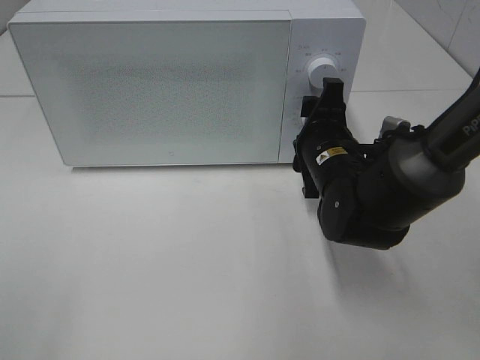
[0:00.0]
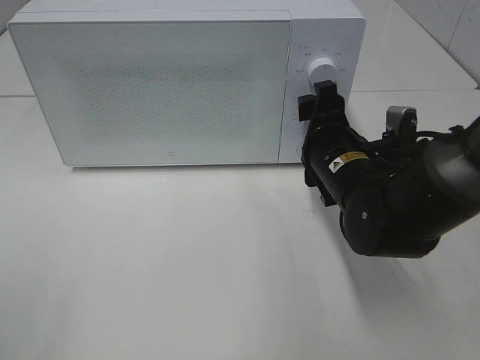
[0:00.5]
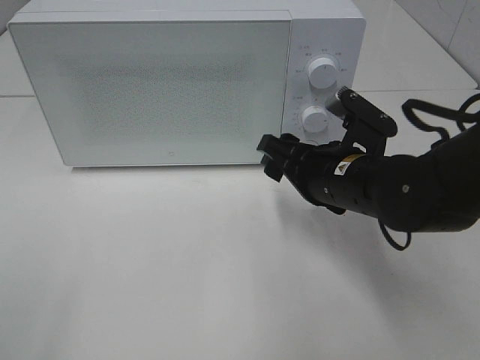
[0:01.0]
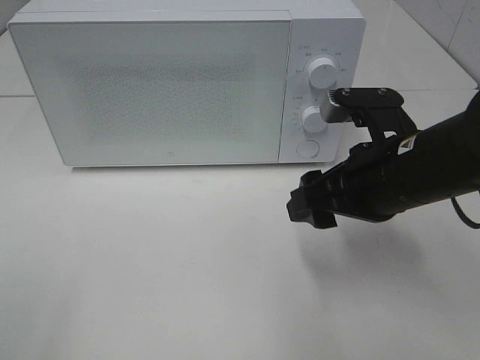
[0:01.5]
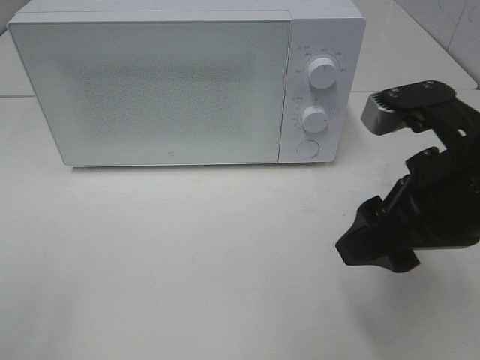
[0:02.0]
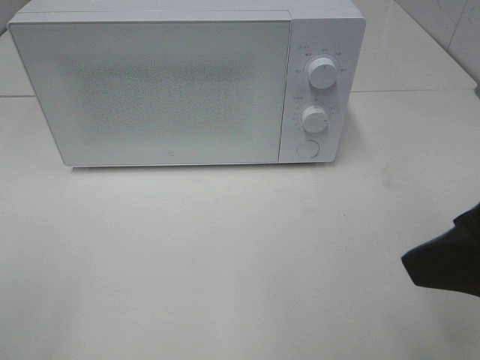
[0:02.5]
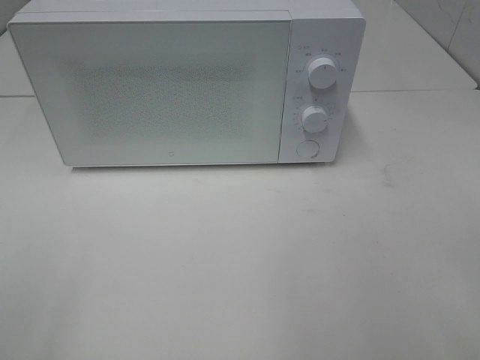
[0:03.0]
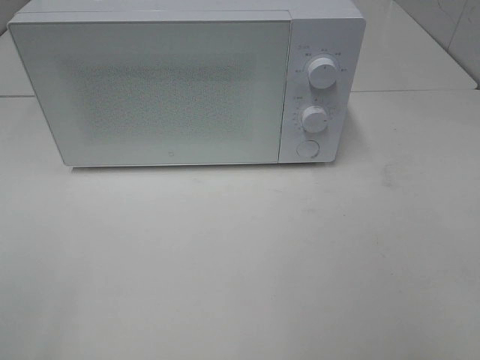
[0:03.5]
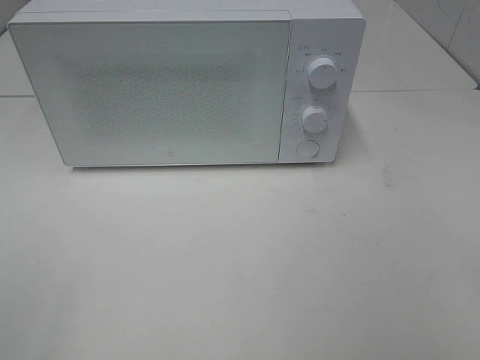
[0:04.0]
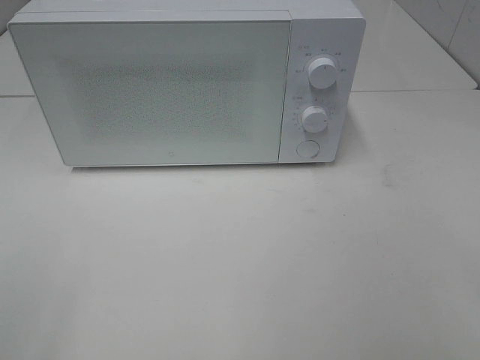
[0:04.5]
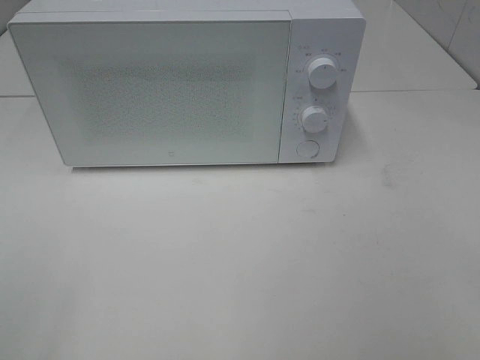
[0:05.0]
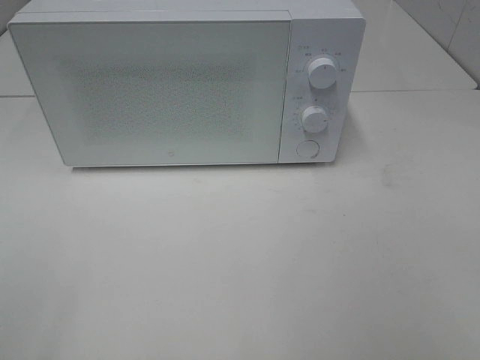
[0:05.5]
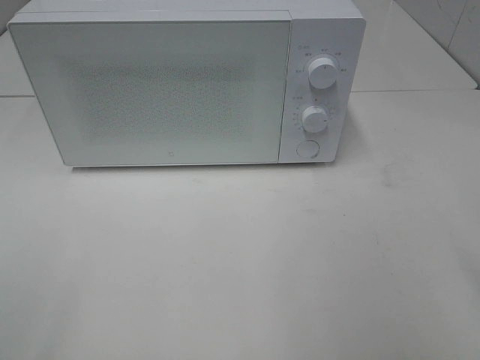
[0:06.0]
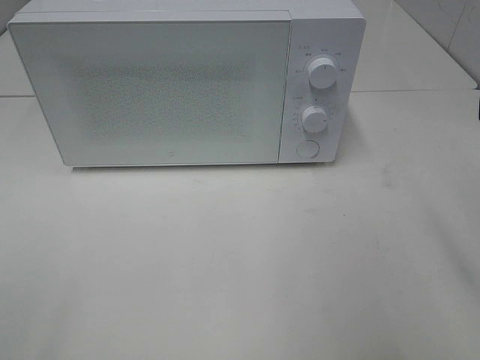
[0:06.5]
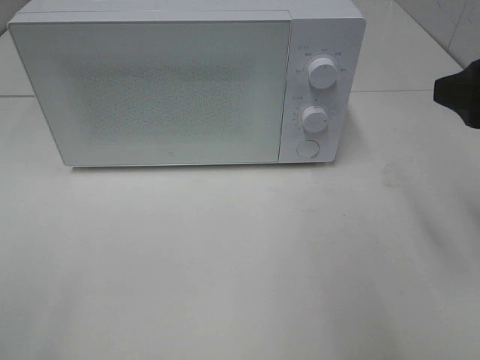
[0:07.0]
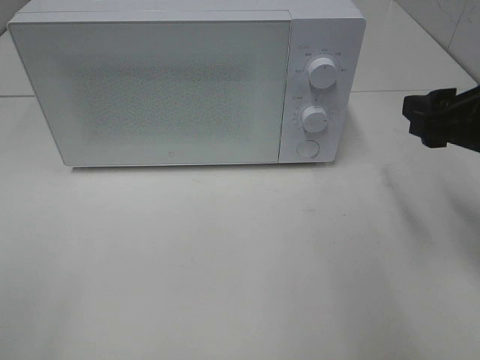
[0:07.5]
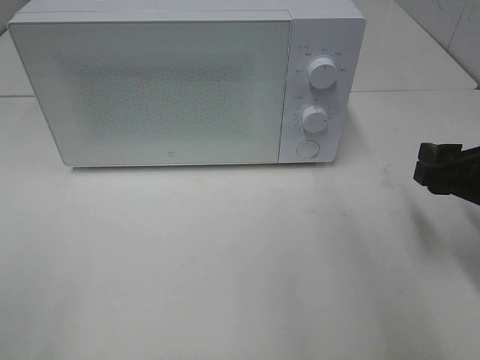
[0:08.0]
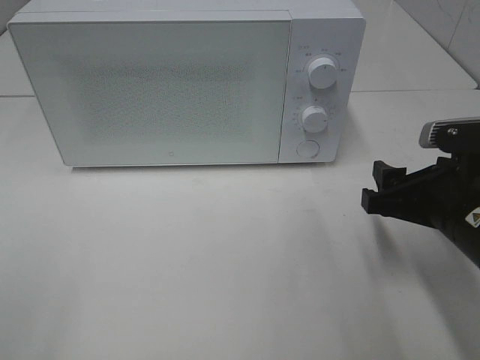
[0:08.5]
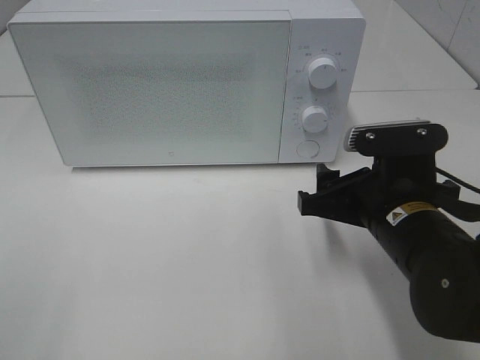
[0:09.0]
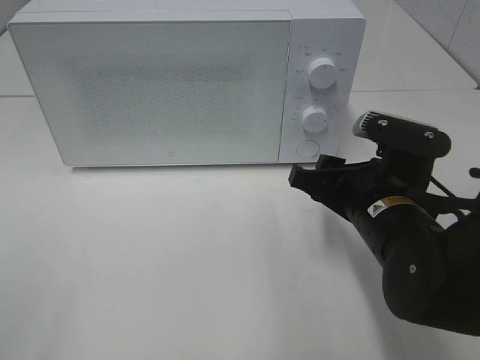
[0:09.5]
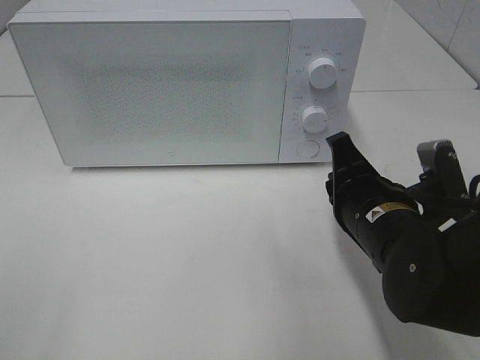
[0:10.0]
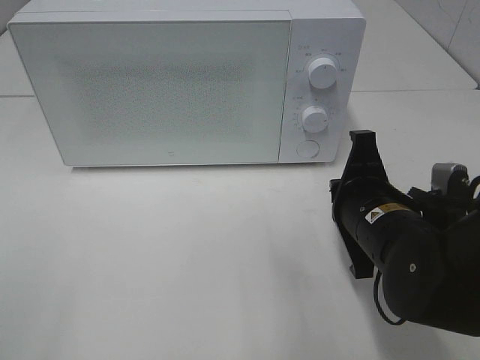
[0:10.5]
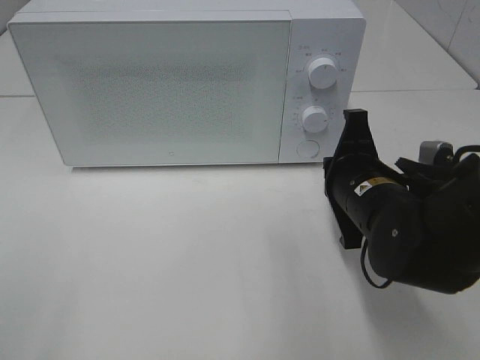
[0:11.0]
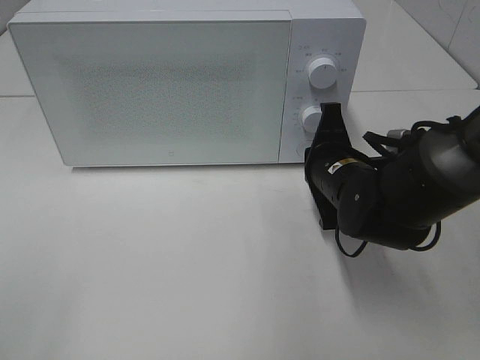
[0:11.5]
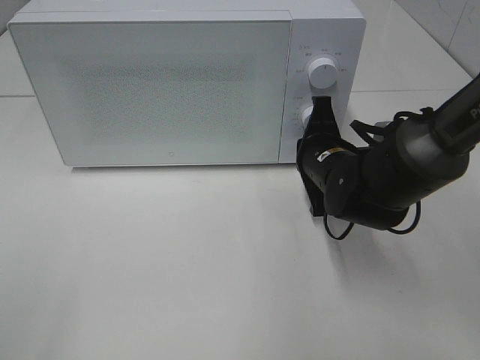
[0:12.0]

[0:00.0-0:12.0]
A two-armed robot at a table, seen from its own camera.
Task of the whole recording: Heat the burger.
0:00.0 to 0:02.0: The right gripper goes some 20 cm backward and upward.
0:02.0 to 0:04.0: The right gripper shifts about 20 cm backward and to the right.
0:06.0 to 0:08.0: The right gripper shifts approximately 20 cm downward and forward.
0:08.0 to 0:10.0: The right gripper heads to the left, covering some 10 cm, and closes up.
0:10.0 to 0:12.0: The right gripper moves forward, roughly 10 cm.

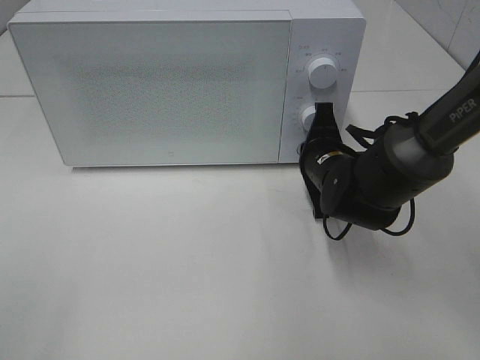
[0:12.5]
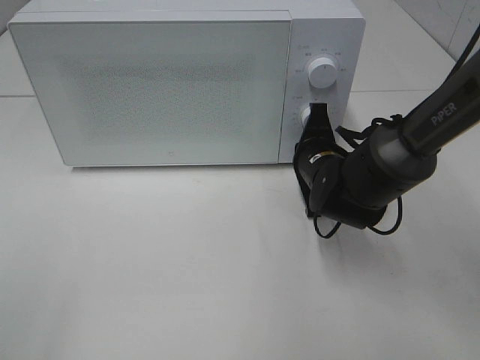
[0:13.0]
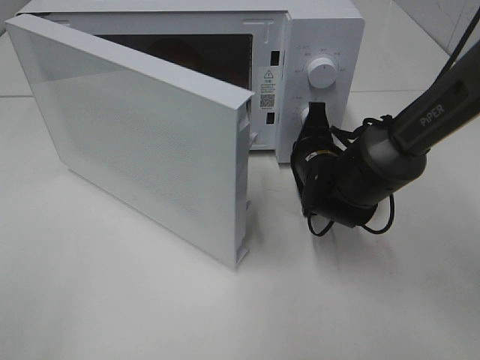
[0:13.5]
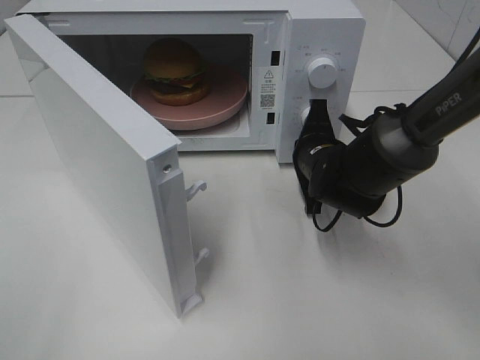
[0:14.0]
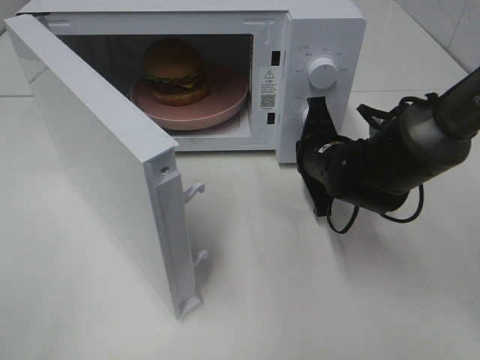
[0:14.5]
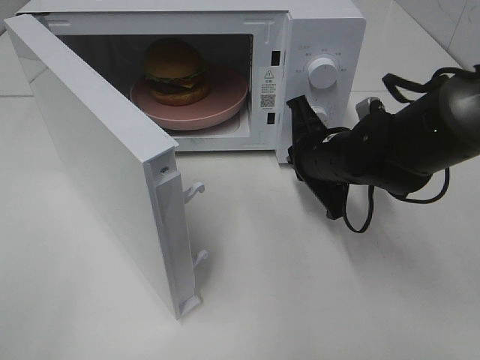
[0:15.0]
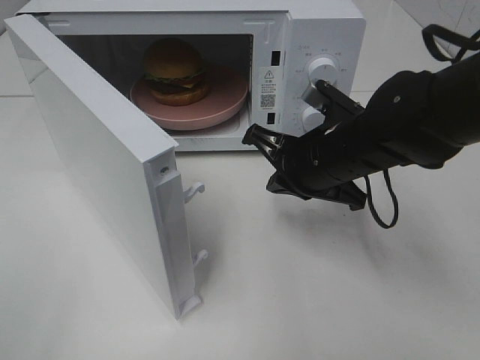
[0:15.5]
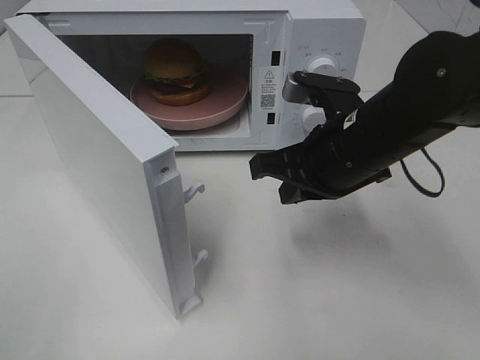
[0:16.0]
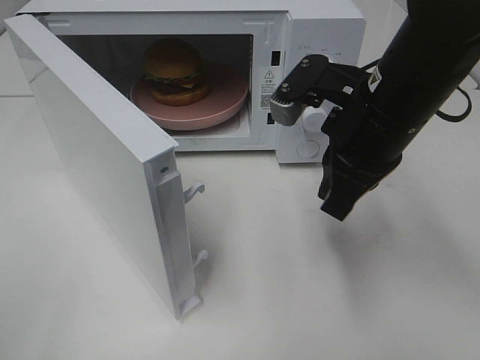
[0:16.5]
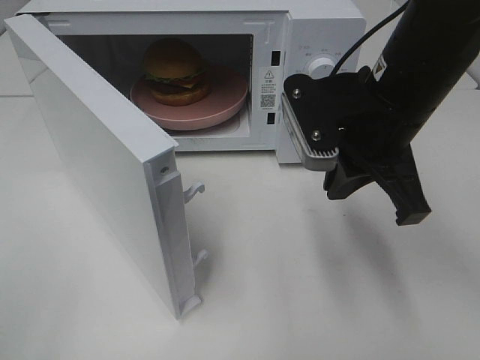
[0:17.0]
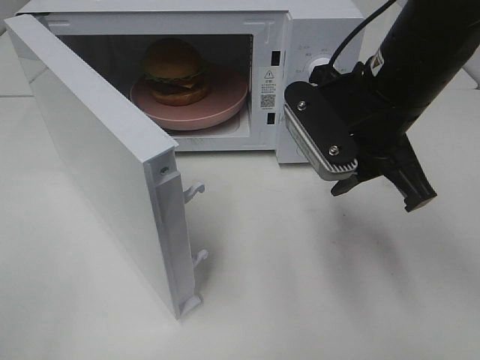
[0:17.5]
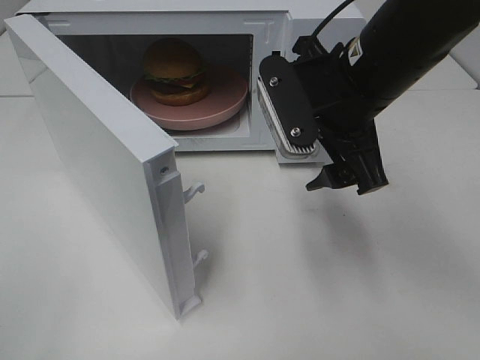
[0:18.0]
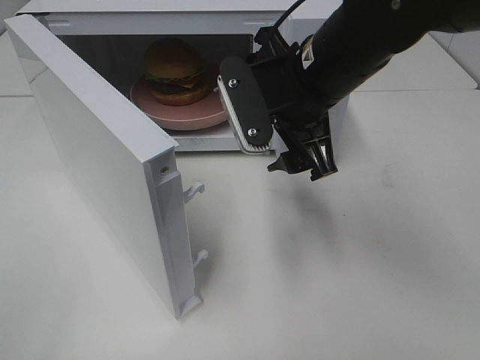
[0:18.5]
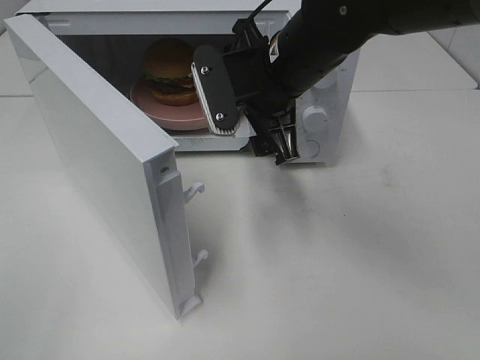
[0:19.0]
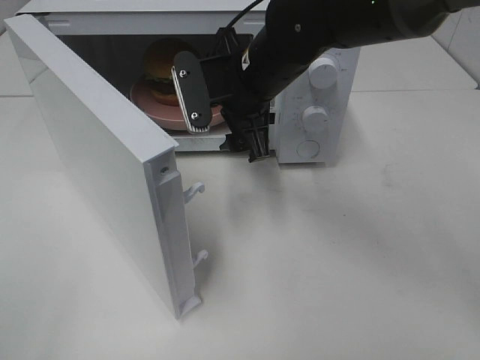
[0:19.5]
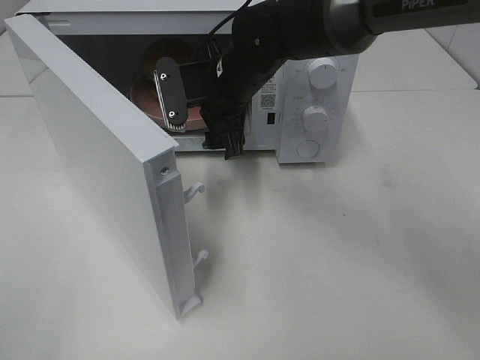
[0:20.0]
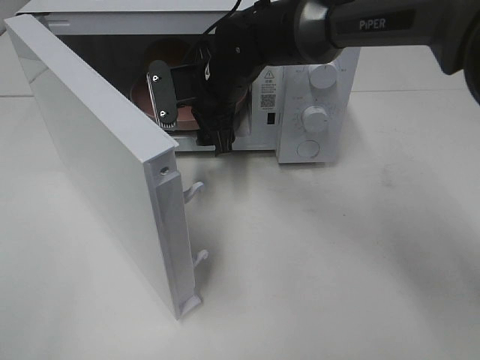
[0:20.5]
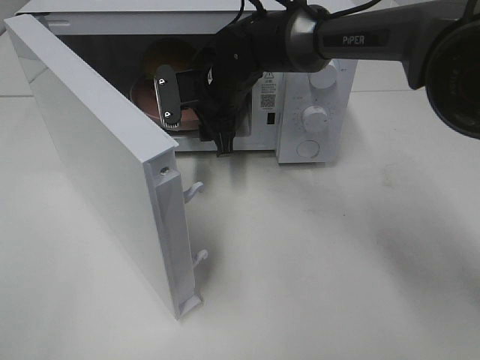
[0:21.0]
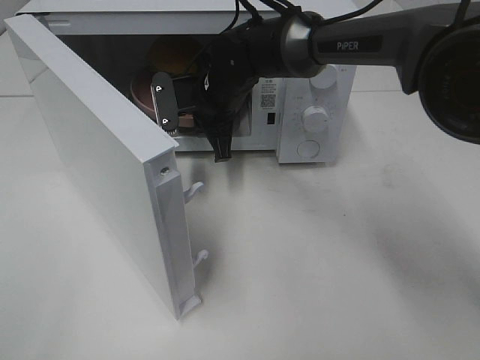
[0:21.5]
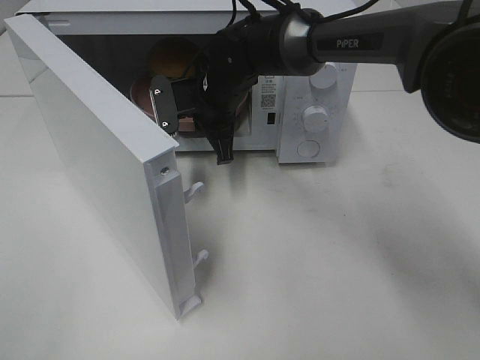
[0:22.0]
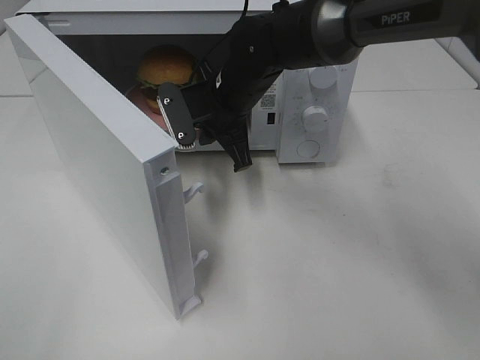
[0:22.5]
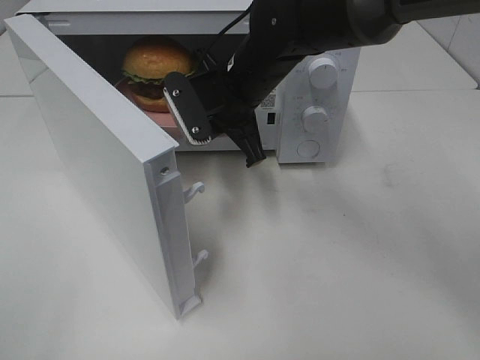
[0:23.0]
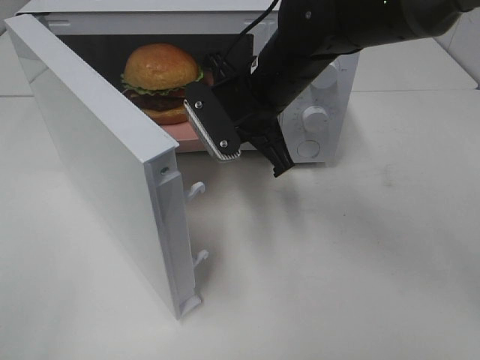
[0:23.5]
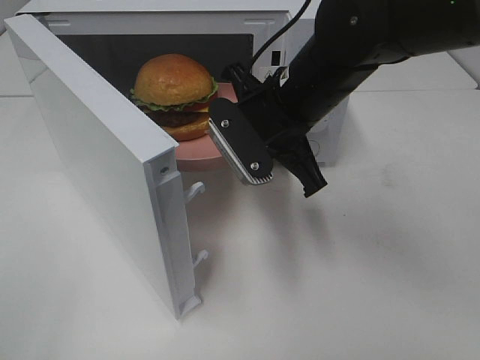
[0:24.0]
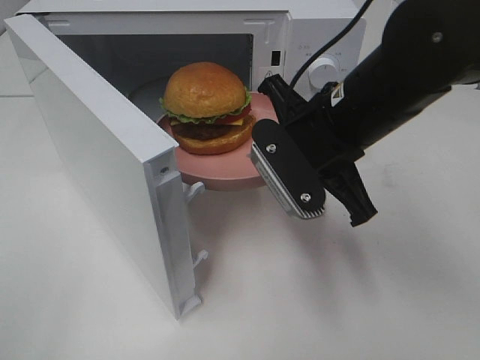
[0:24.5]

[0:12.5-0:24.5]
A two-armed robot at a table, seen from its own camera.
Task of the whole recording: Heat the burger.
Step, 0:12.5 to 0:14.5: Right hand: press the switch.
Step, 0:15.0 to 0:21.0: Right hand: grab the plate with the hamburger.
0:14.5 to 0:16.5: The right gripper moves upward and backward, approximately 15 cm.
0:16.5 to 0:18.5: The right gripper is displaced to the left by roughly 5 cm, and opens.
0:18.5 to 0:20.5: The right gripper travels forward, to the left and downward by approximately 15 cm.
0:20.5 to 0:22.5: The right gripper closes up.
0:22.5 to 0:24.5: The right gripper shifts about 15 cm backward and to the right.

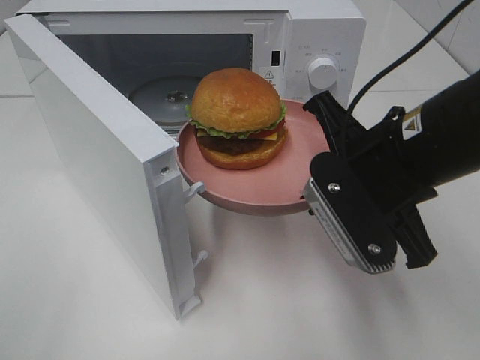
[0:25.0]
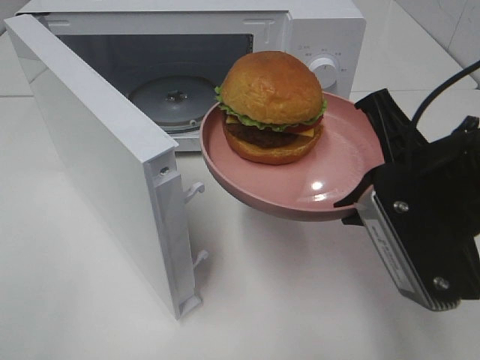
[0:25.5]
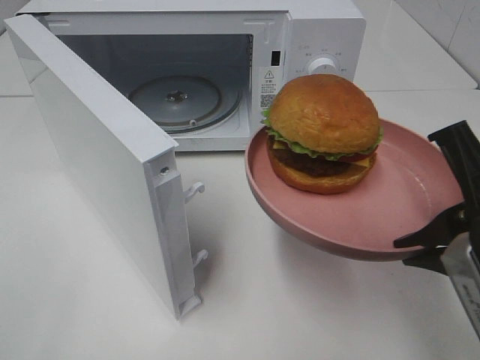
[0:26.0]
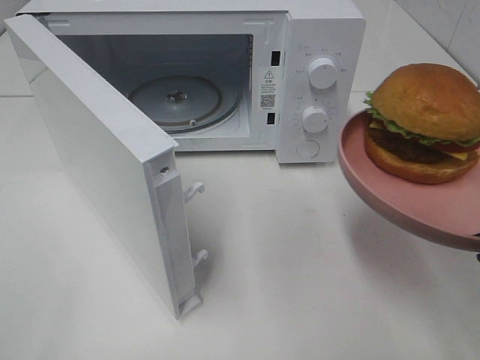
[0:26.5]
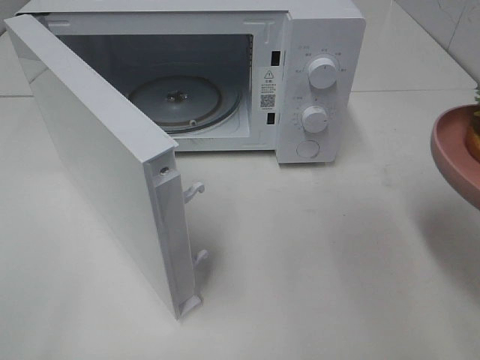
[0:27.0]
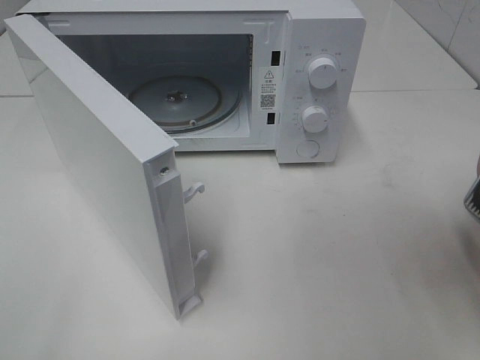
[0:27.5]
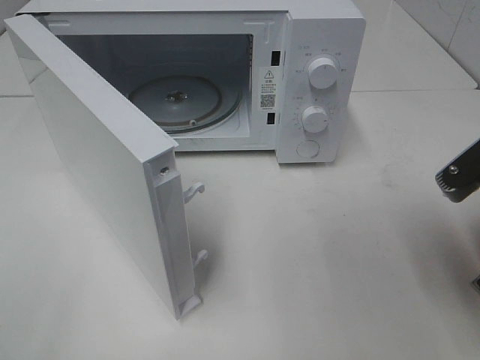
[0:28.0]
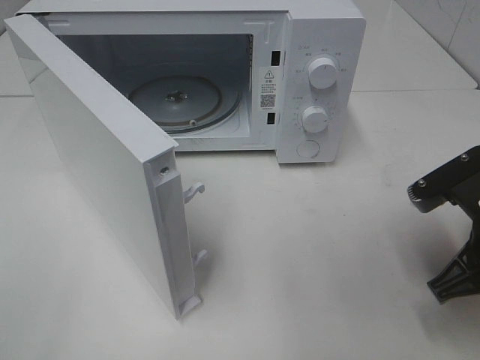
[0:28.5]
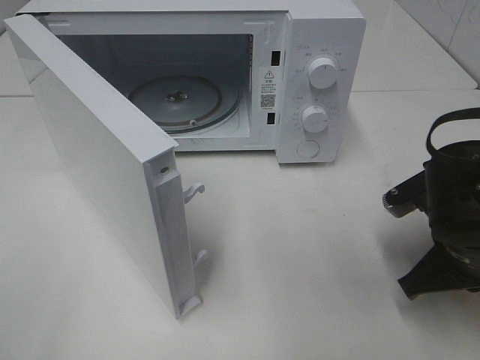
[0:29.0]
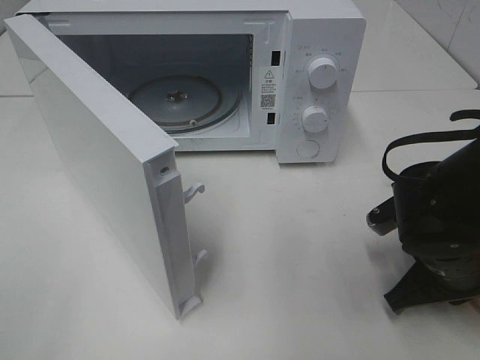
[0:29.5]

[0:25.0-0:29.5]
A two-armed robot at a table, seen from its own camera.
Task of the whole recording: Heat the burger.
0:25.0 to 0:27.0: The right gripper is displaced to the right and backward by some 15 cm.
0:27.0 to 0:29.5: The right gripper is displaced downward and forward by roughly 20 cm.
